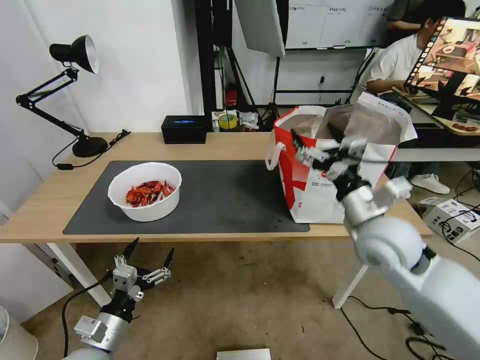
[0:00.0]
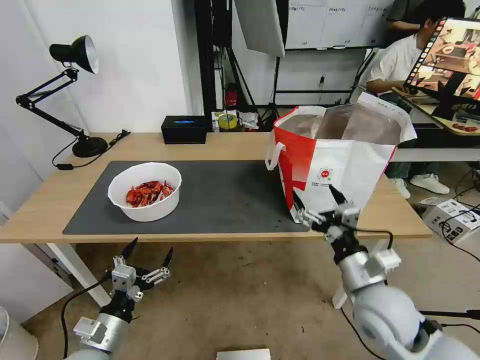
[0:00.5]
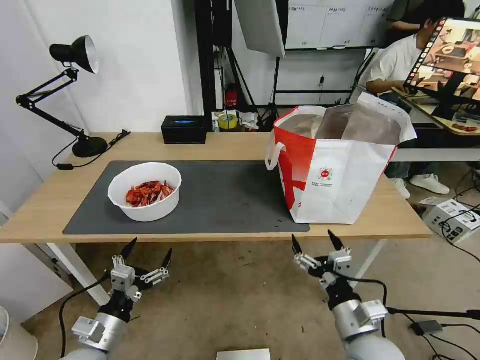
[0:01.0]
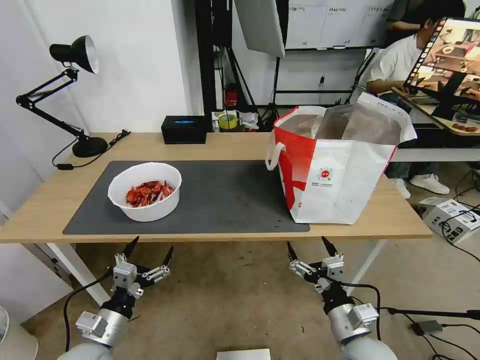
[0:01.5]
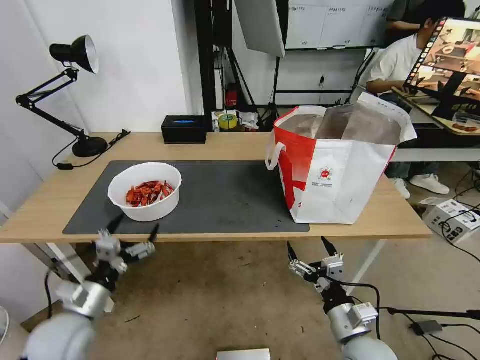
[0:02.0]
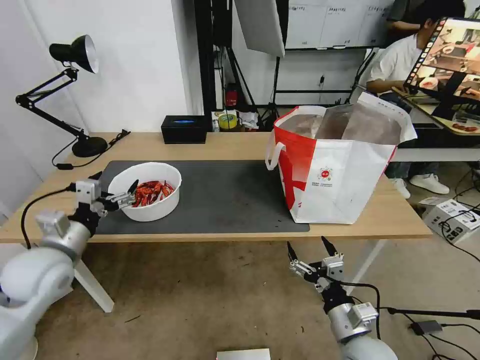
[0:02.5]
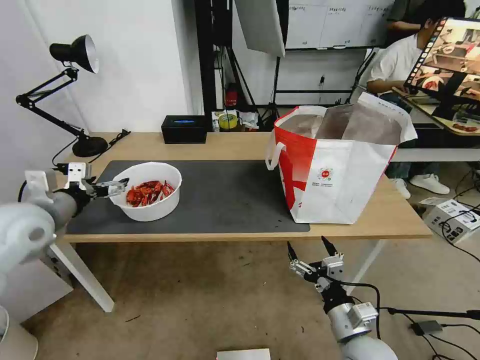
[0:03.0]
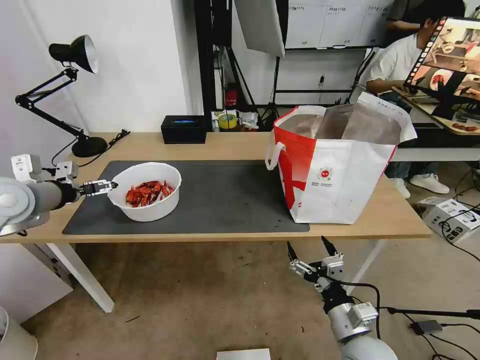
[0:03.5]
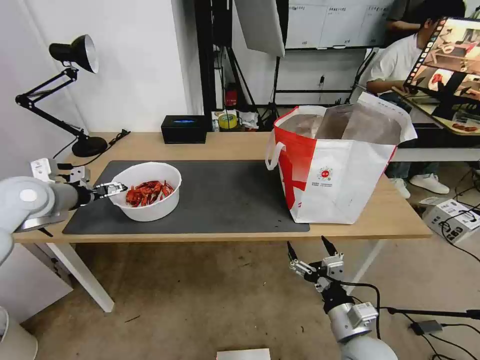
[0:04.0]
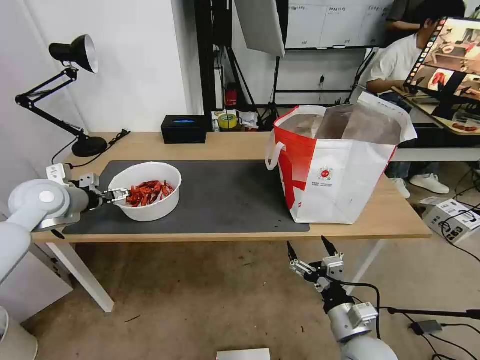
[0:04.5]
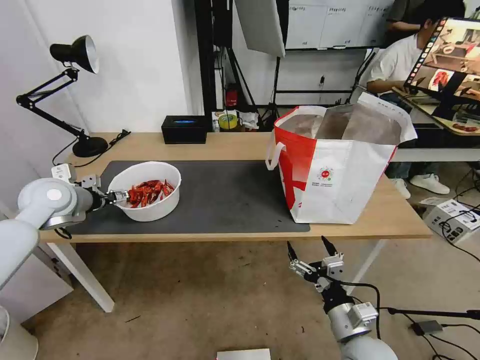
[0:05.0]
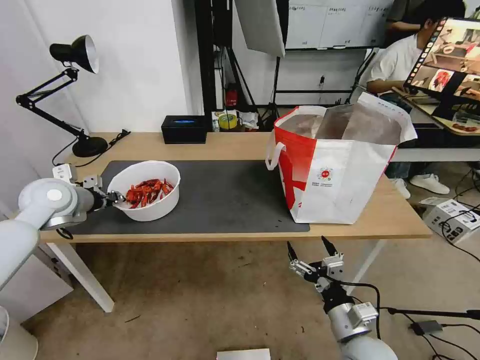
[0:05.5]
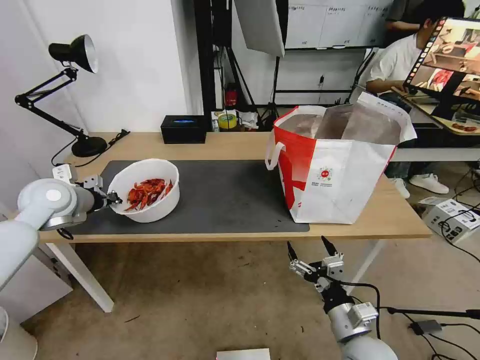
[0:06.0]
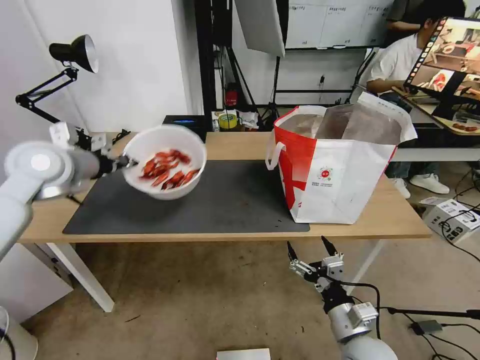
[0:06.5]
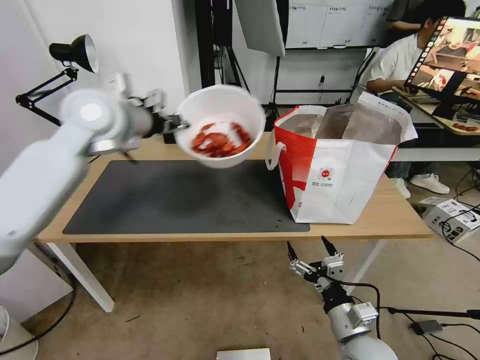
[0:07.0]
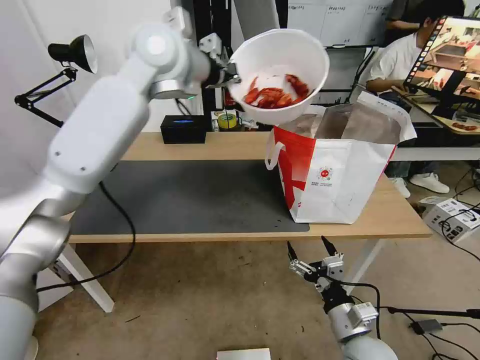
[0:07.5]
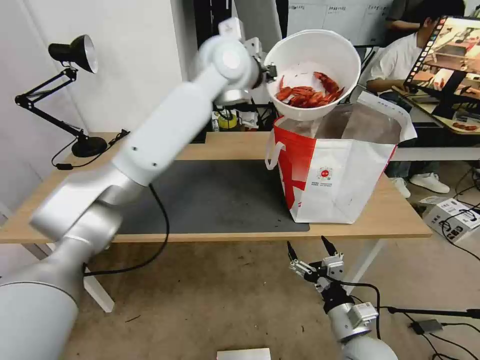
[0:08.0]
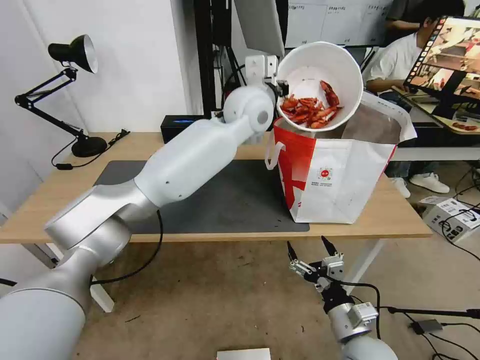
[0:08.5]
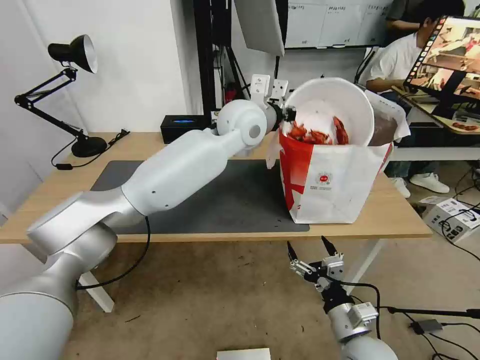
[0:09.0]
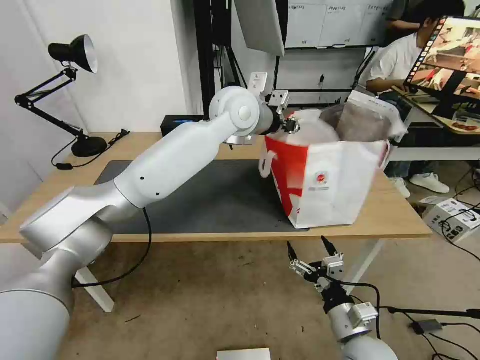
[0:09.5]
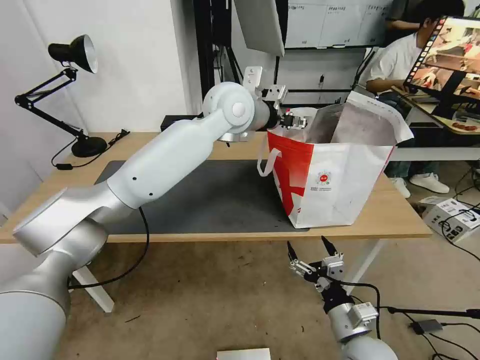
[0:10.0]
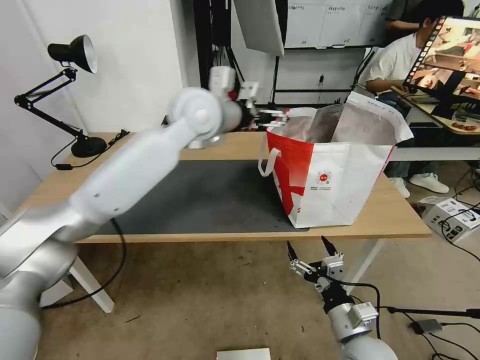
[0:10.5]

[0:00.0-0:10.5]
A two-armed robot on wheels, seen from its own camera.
Task of the whole recording: Pick up the trash from the table and place it into the takeout bag.
0:00.0 to 0:02.0: The left gripper changes place by roughly 5 cm, while the right gripper moves downward and backward, some 25 cm.
0:02.0 to 0:04.0: The left gripper travels forward, upward and to the left by approximately 30 cm.
0:04.0 to 0:06.5: The left gripper travels upward and to the right by approximately 10 cm, and closes.
0:06.5 to 0:08.5: The left gripper shifts roughly 35 cm to the right.
0:08.5 to 0:10.5: The left gripper goes some 10 cm to the left, and opens up.

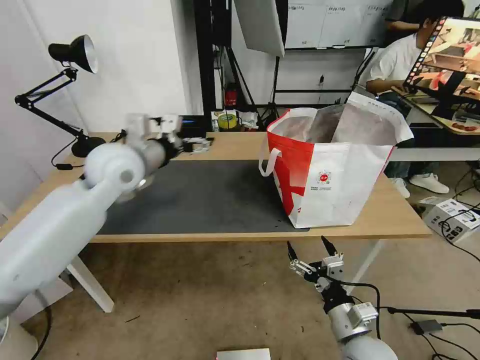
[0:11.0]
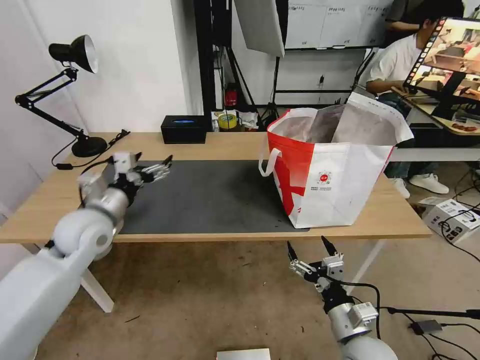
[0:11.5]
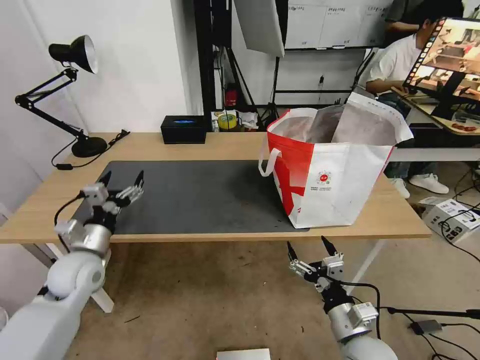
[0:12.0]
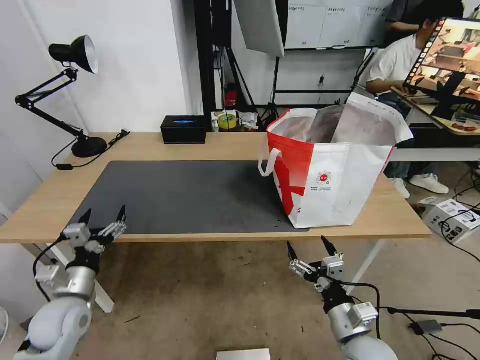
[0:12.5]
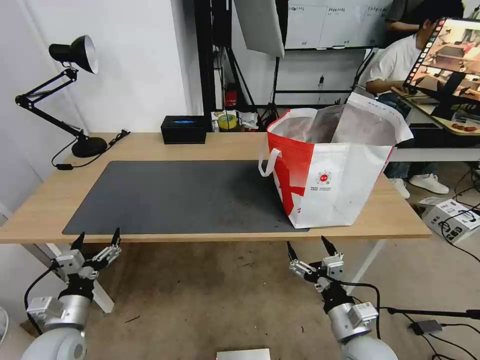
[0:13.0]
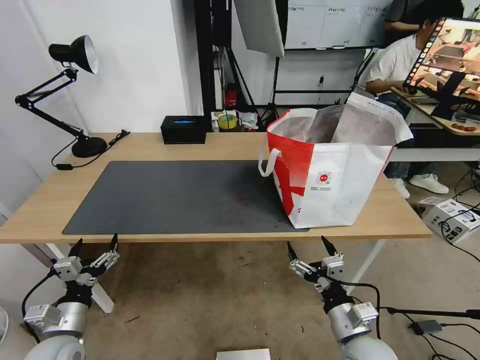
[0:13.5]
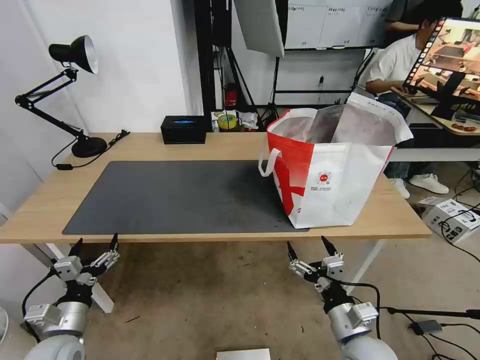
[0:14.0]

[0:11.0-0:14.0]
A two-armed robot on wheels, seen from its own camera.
Task of the whole recording: Pick up the trash from the table and place it into the takeout bag.
0:11.0 to 0:12.5: The left gripper heads downward, backward and to the left, covering roughly 35 cm.
0:12.5 to 0:14.0: The left gripper travels backward by about 5 cm.

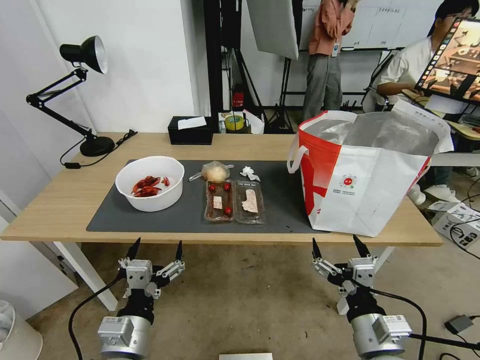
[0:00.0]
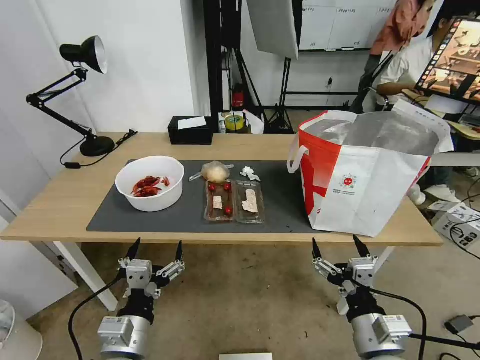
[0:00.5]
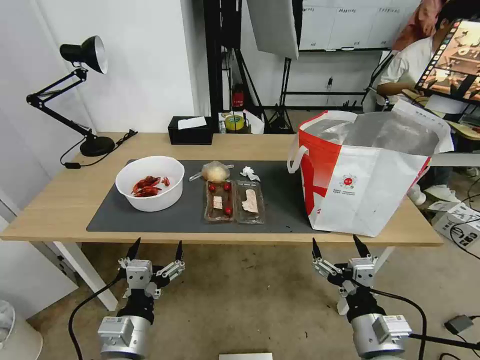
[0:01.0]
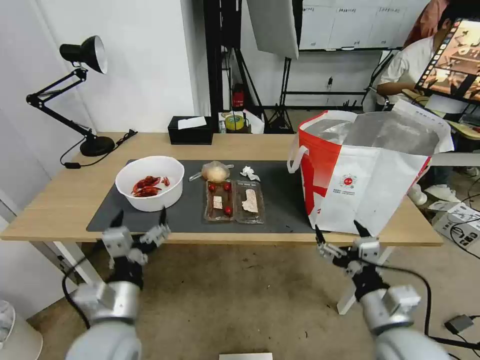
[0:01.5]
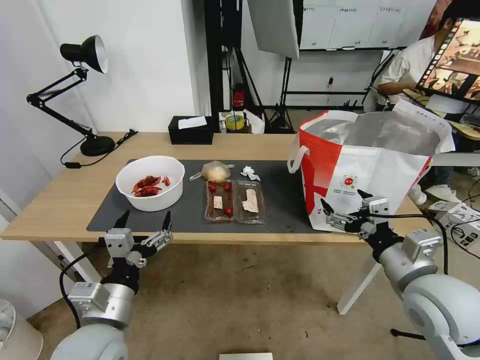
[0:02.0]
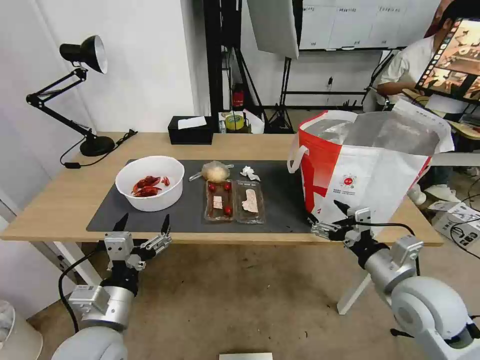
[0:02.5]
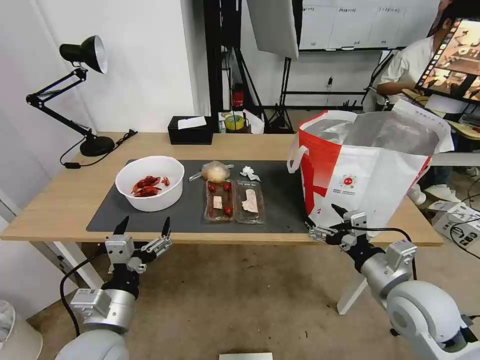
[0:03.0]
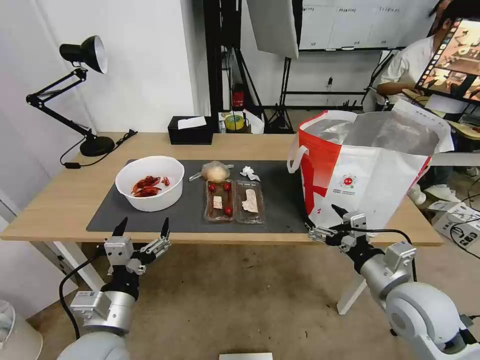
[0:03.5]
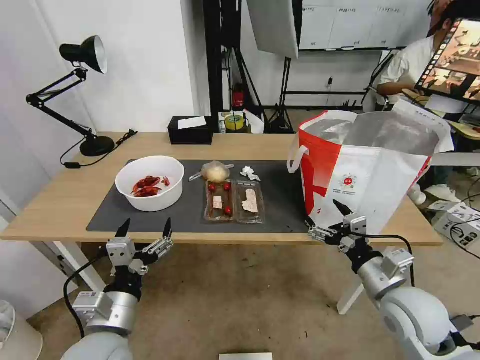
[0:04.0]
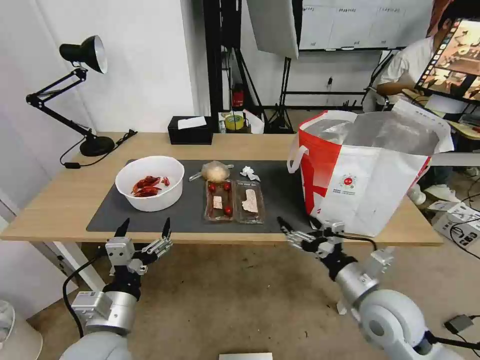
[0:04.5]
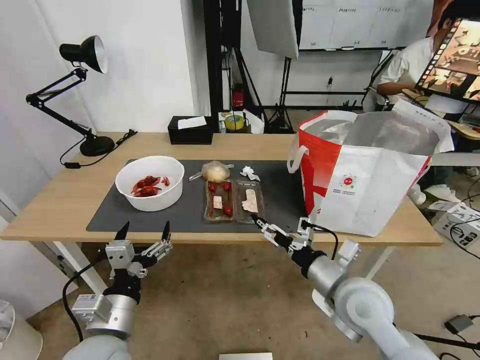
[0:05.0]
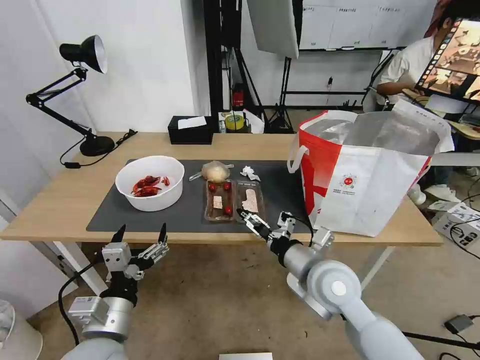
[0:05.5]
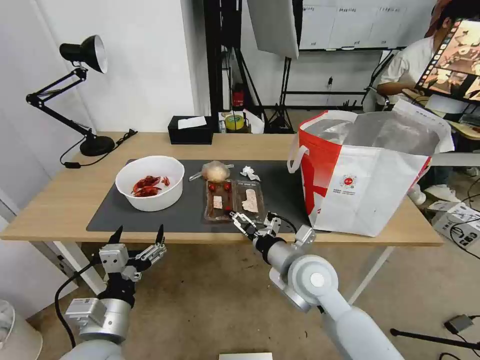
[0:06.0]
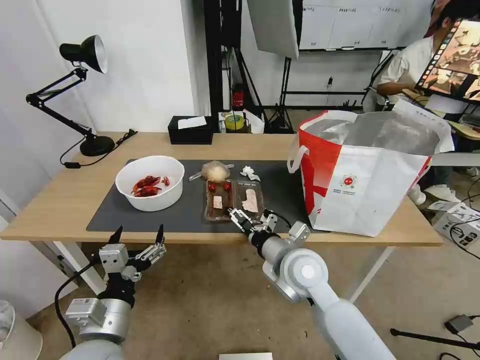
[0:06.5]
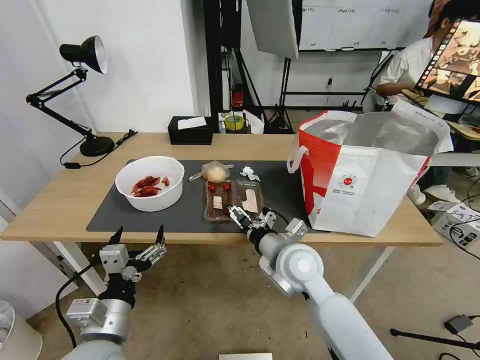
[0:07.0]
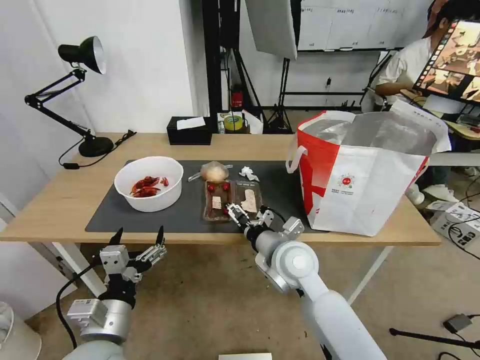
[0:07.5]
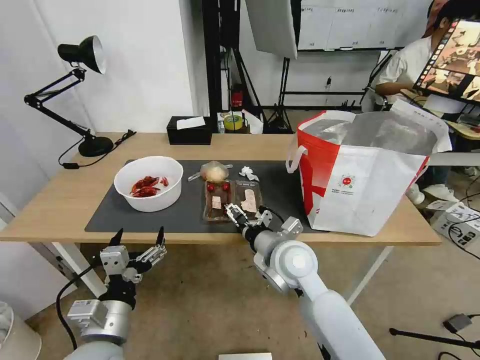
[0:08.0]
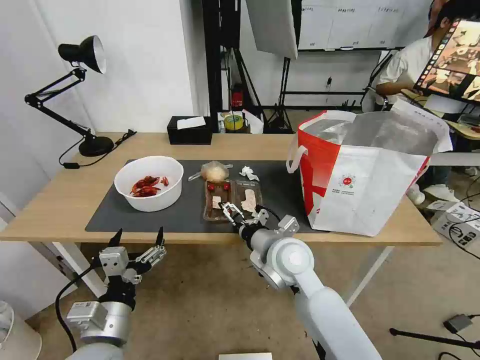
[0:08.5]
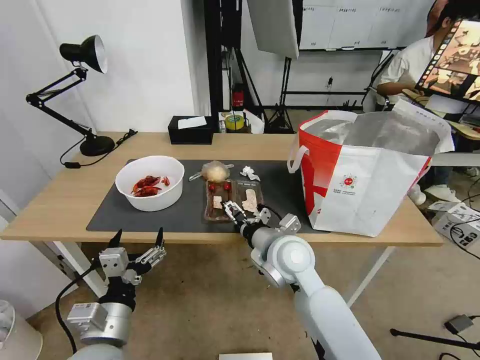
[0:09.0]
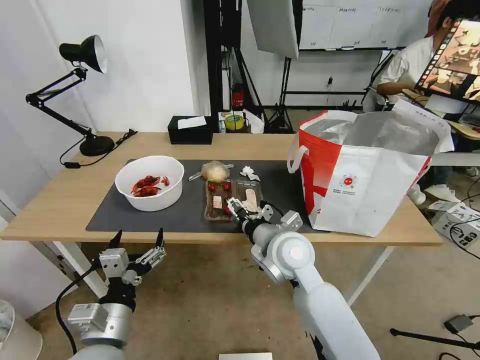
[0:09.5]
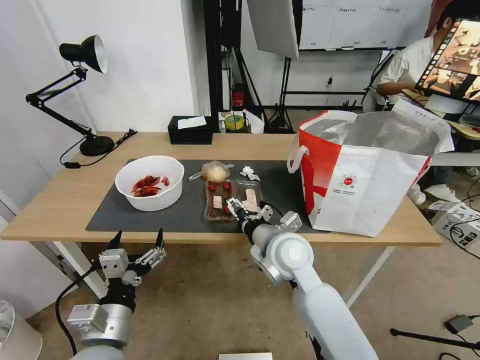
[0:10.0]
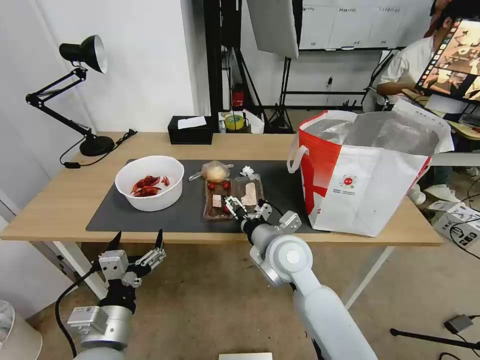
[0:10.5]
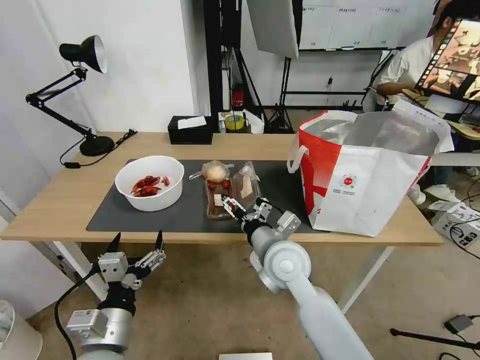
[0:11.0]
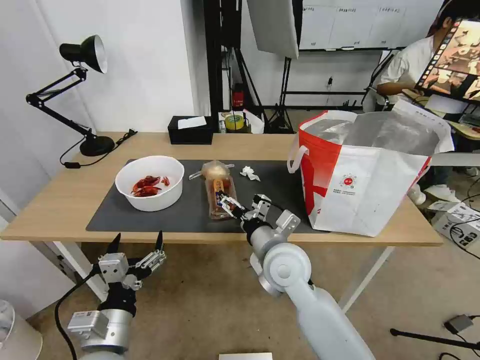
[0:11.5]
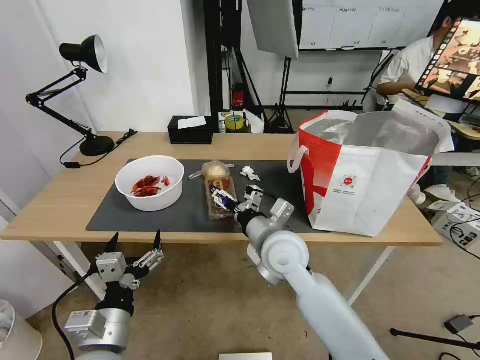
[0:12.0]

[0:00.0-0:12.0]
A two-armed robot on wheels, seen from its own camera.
Task of the whole recording: Pick up the trash from the table and place it into the takeout bag.
0:02.0 to 0:04.0: The right gripper goes about 5 cm downward.
0:04.0 to 0:06.0: The right gripper moves to the left, approximately 15 cm.
0:06.0 to 0:08.0: The grippers move only a little.
0:08.0 to 0:10.0: There are only small adjustments of the grippers.
